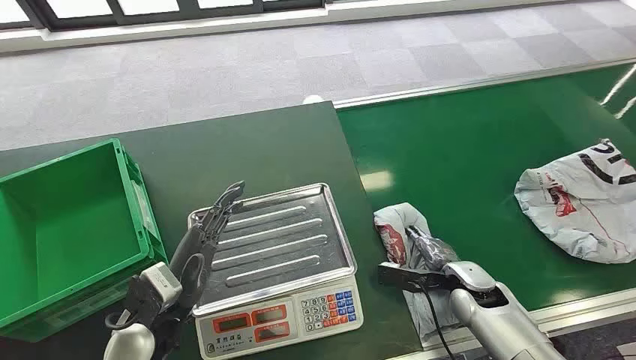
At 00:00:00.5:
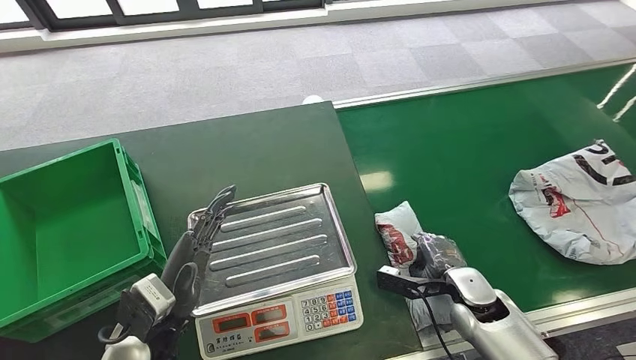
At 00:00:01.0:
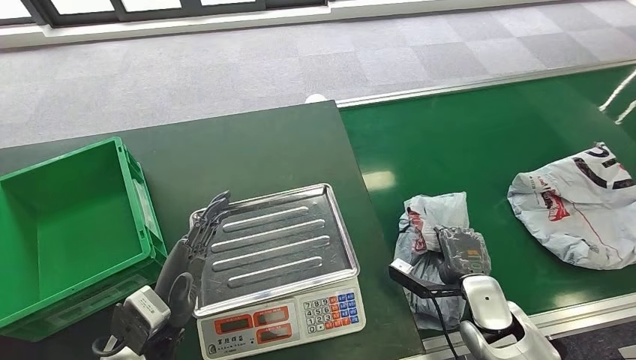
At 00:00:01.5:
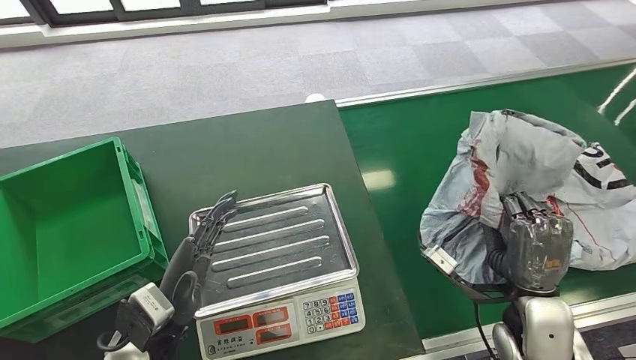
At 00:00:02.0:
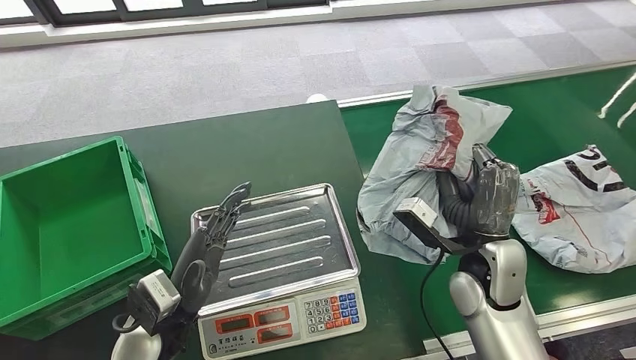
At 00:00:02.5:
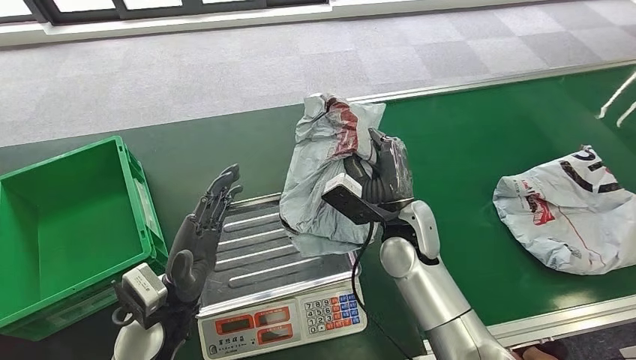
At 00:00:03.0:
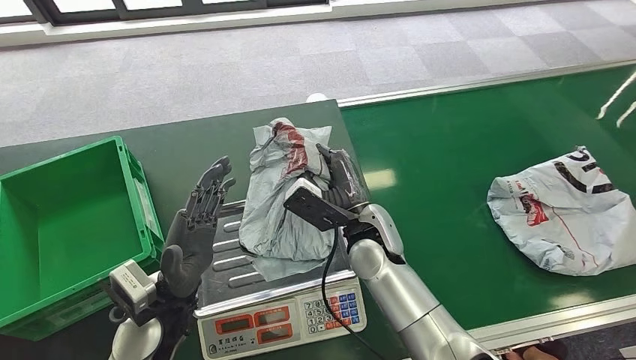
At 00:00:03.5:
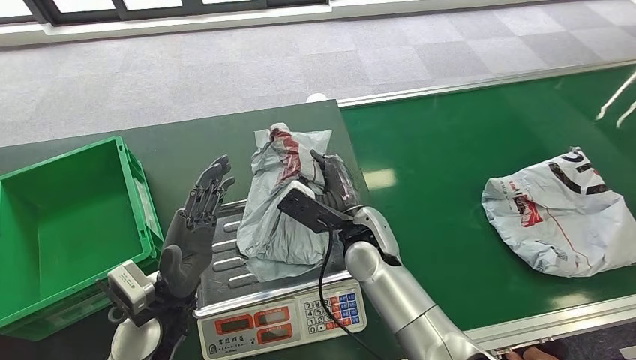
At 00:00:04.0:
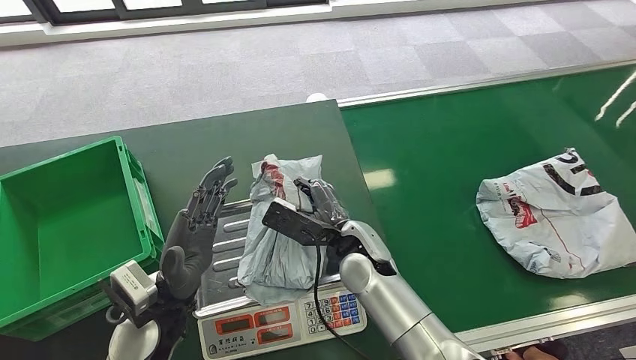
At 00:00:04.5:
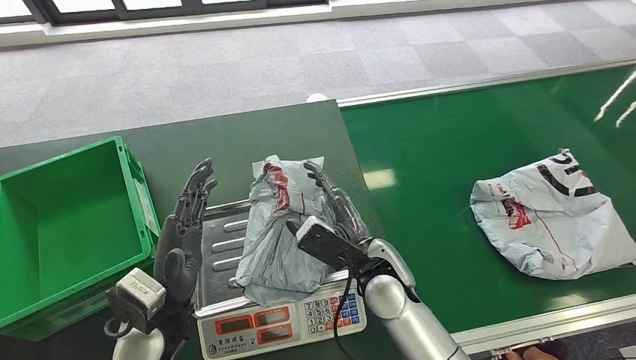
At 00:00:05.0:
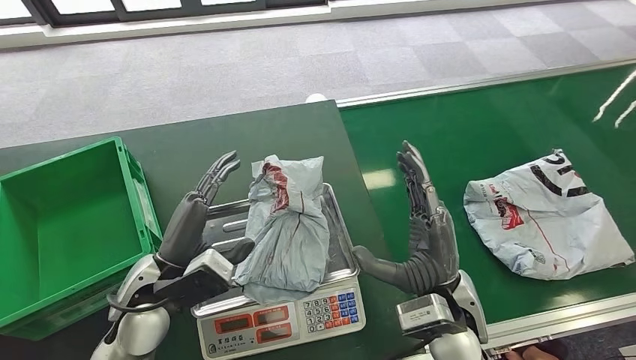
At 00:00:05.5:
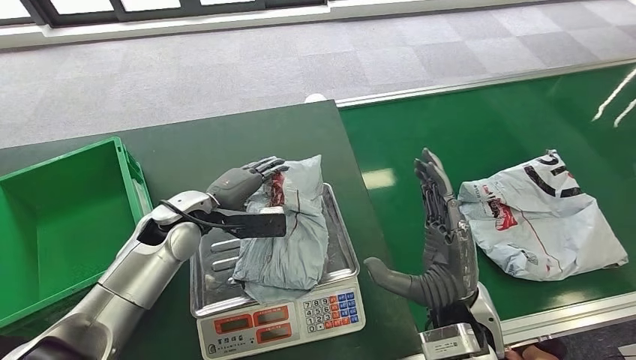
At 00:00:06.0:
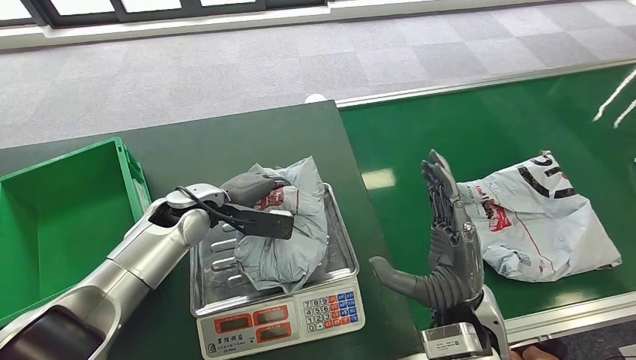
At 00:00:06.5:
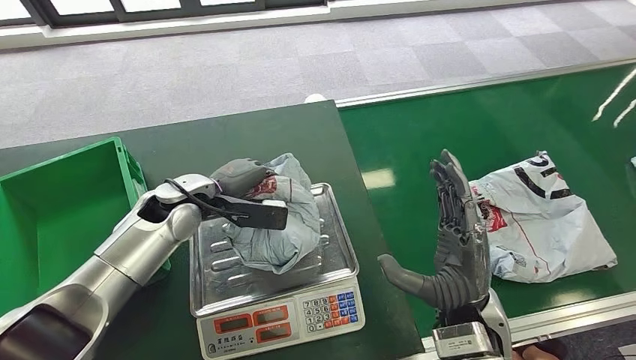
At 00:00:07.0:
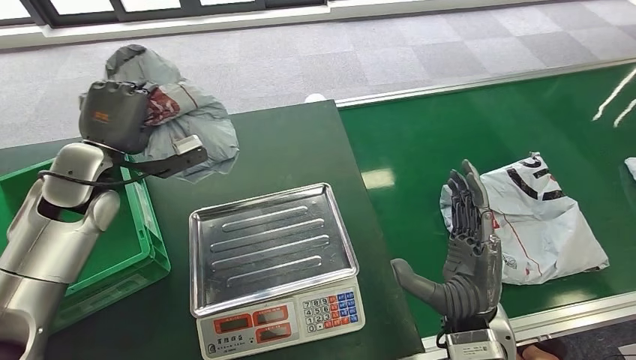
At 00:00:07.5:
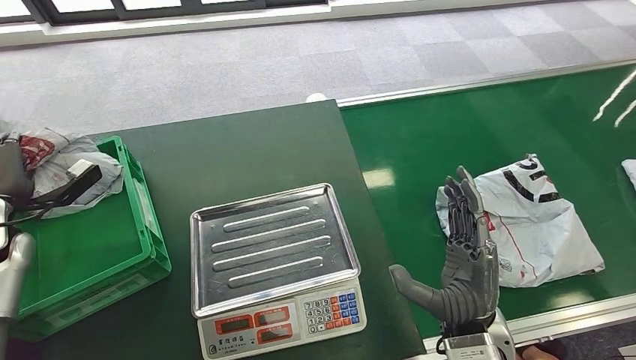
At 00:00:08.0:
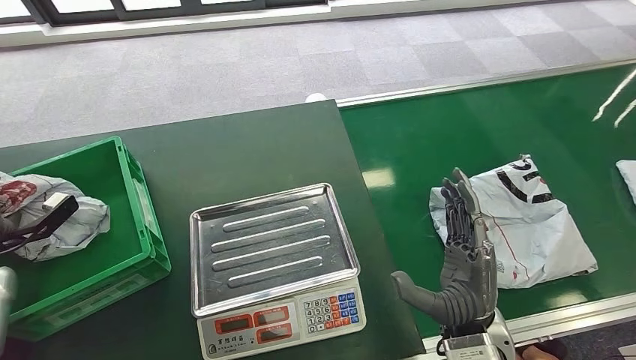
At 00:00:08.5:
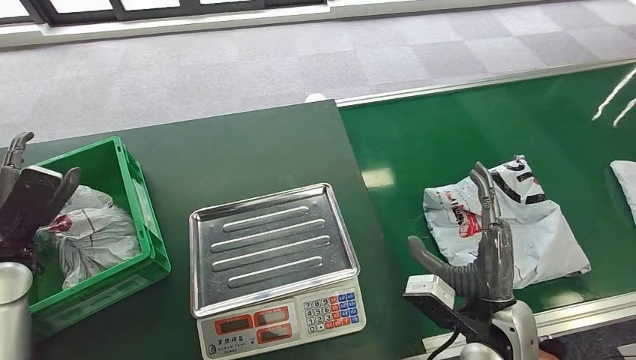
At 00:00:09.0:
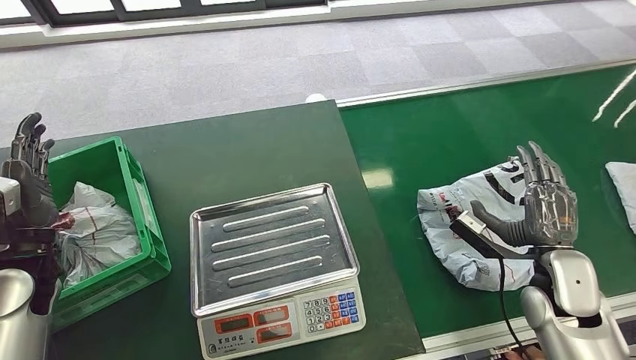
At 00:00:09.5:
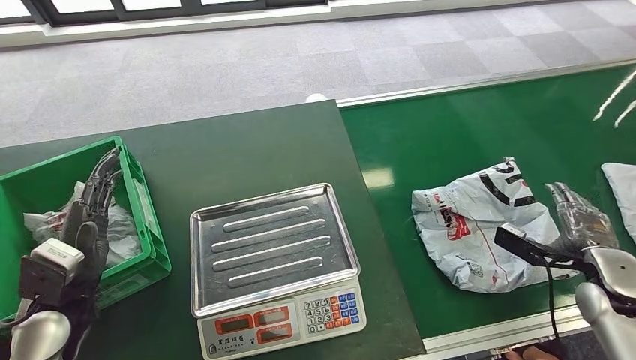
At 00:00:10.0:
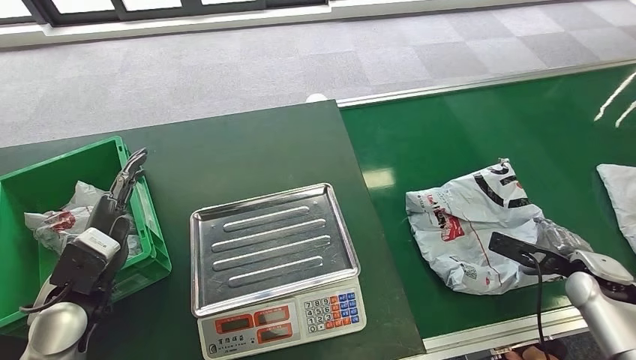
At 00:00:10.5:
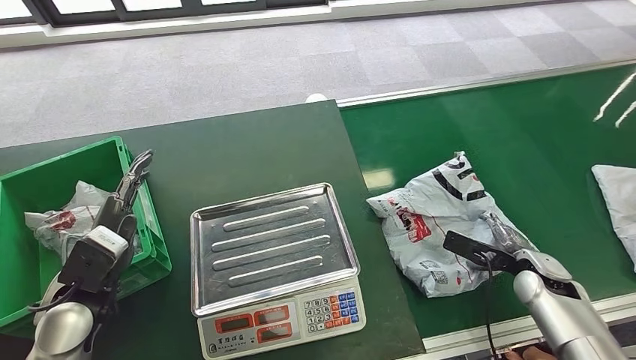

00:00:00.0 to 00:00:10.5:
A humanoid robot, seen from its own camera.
Step, 00:00:00.0 to 00:00:01.5: Take the parcel off the conveyor belt.
Step, 00:00:02.0 to 00:00:04.5: Place the parcel onto the inbound machine.
Step, 00:00:05.0 to 00:00:07.0: Pick up the parcel from the inbound machine.
Step, 00:00:07.5 to 00:00:10.5: Put the parcel inside the courier box.

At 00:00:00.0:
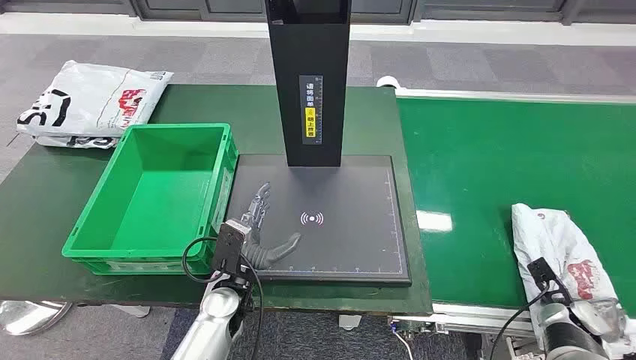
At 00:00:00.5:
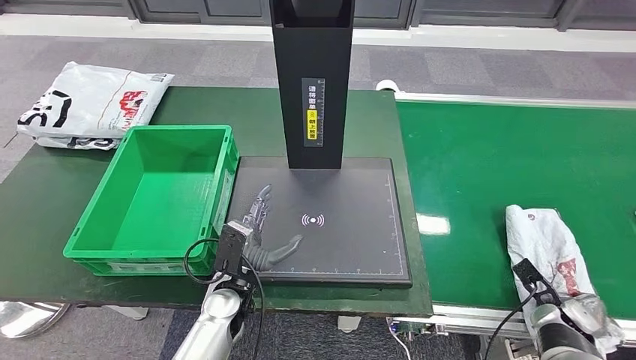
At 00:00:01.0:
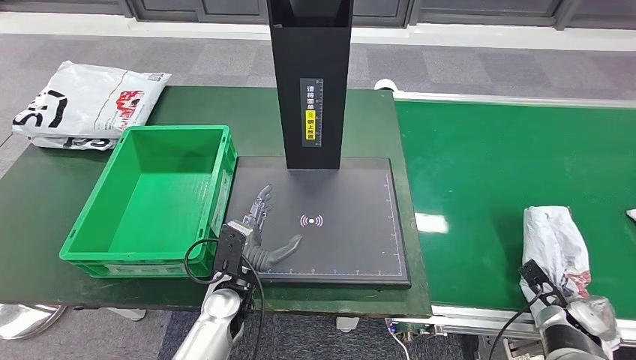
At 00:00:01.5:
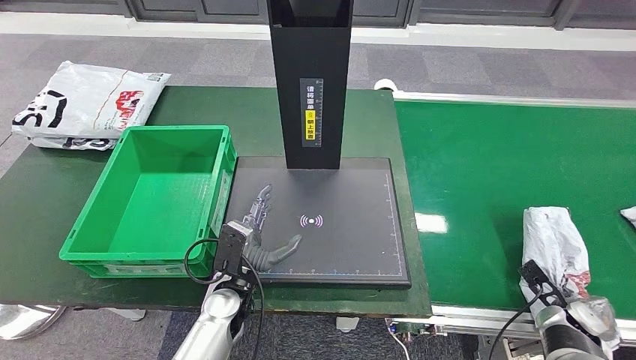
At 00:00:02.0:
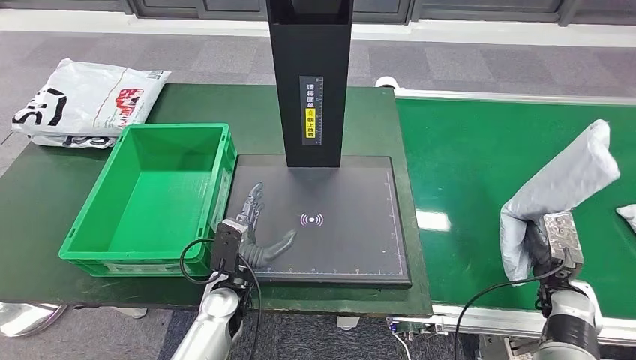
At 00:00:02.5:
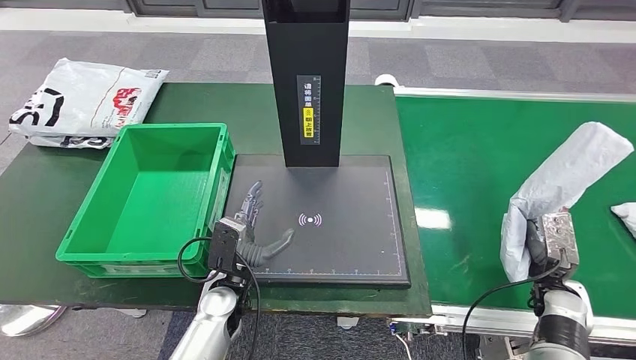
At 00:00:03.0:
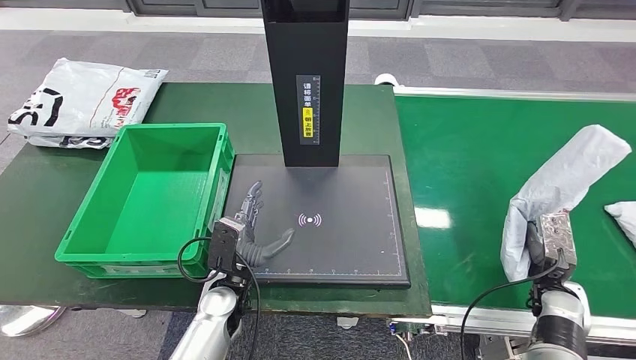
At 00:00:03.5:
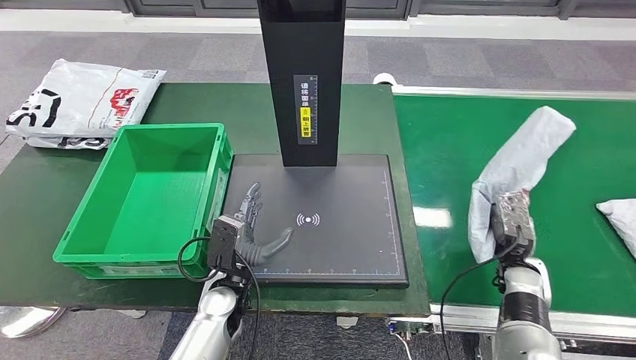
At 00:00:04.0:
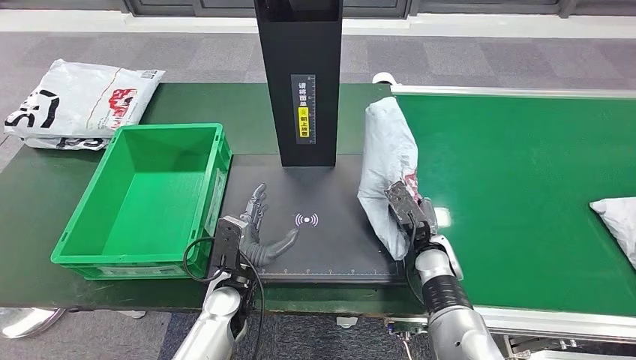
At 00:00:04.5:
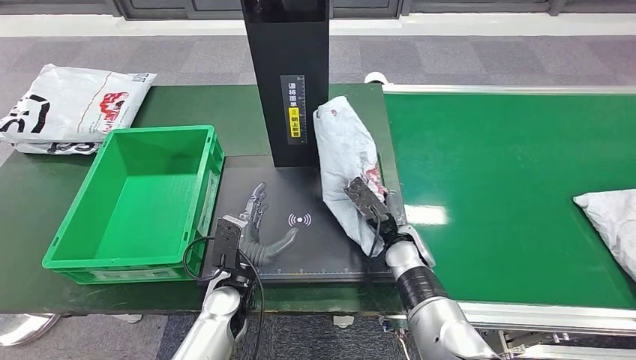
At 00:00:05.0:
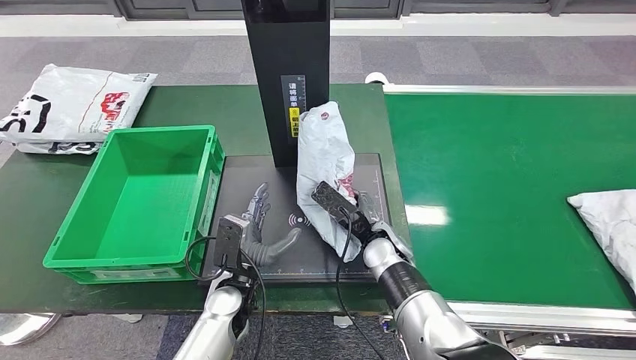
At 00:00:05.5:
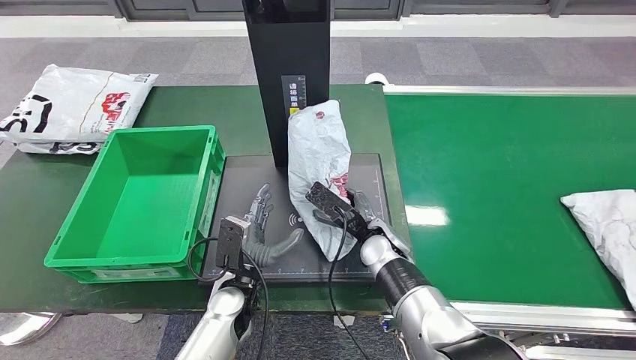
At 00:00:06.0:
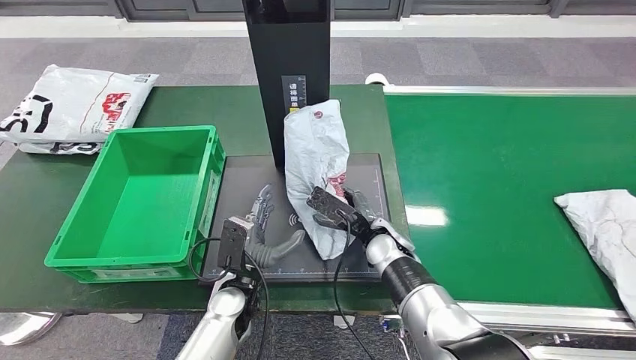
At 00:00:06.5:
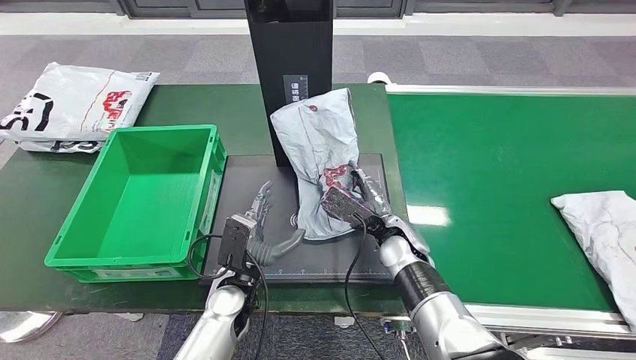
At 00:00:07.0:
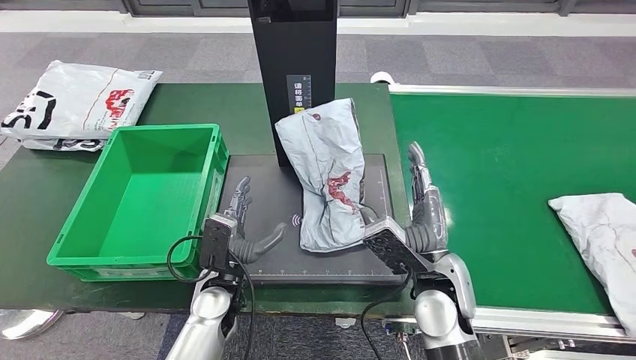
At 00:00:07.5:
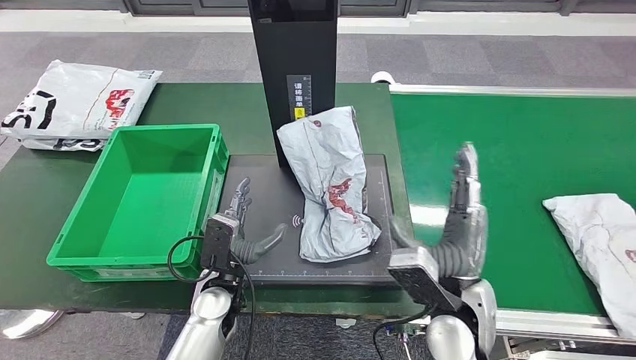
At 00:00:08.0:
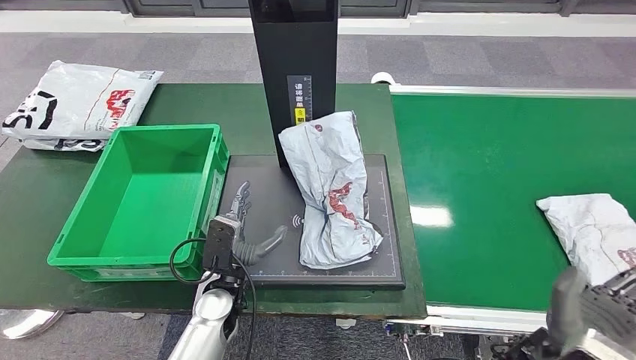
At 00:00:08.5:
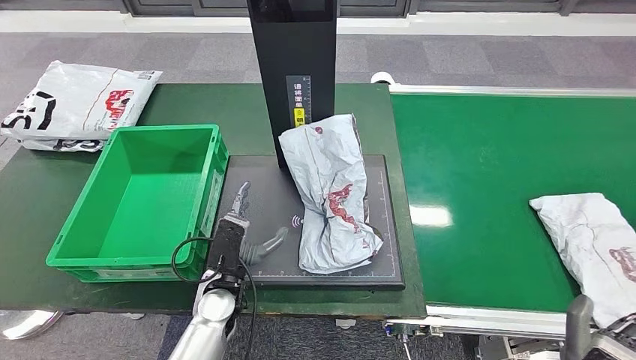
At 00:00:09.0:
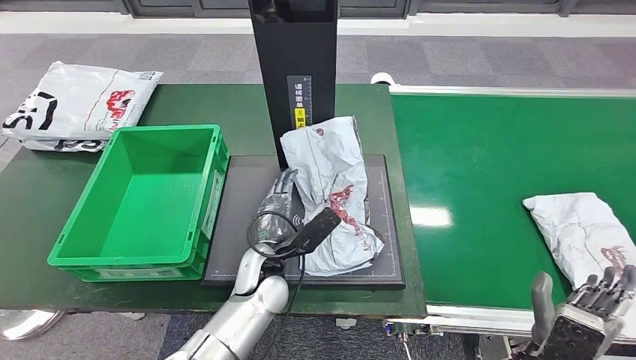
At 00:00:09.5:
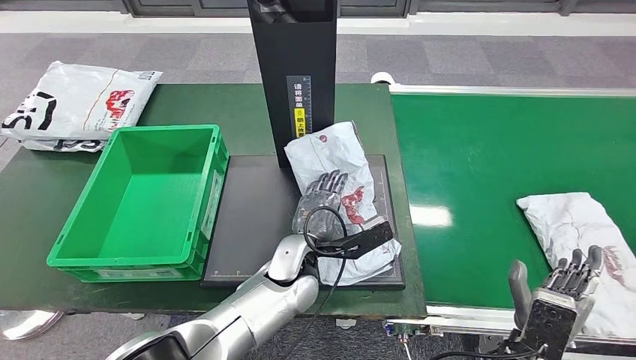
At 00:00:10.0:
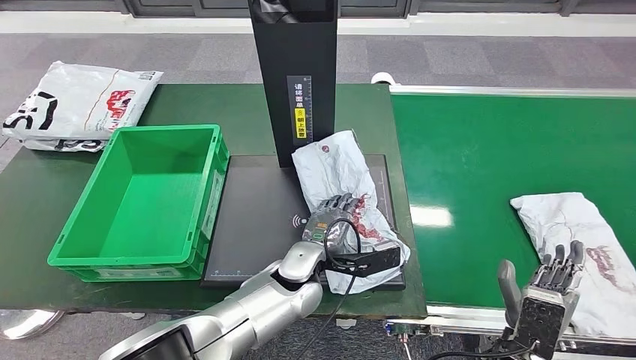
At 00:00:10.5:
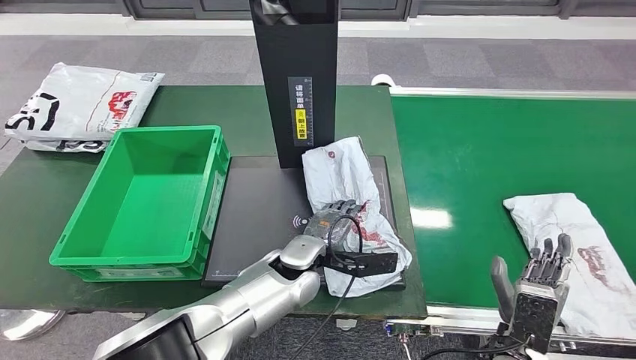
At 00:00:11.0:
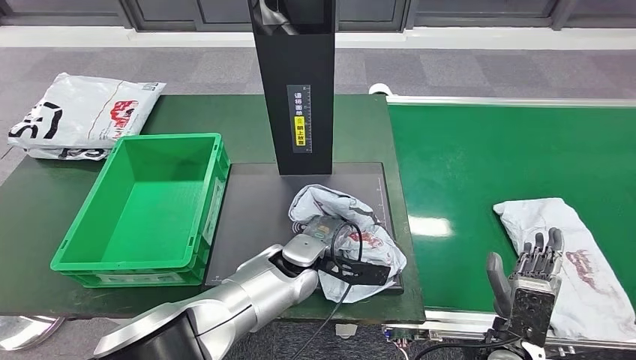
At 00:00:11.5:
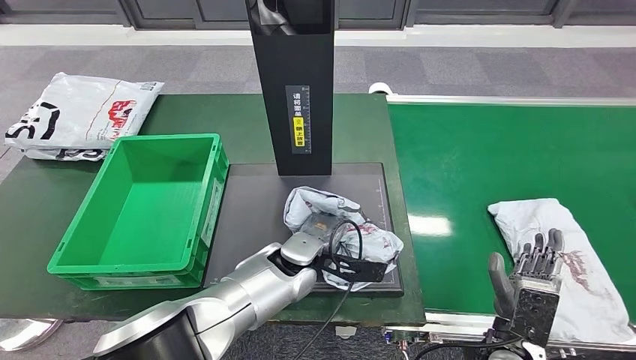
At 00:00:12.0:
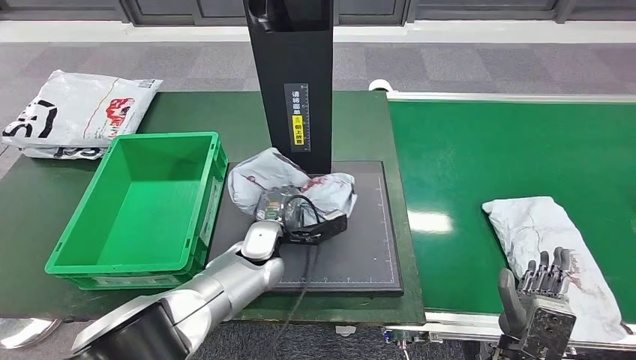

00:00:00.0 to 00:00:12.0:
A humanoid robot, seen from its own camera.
Step, 00:00:00.0 to 00:00:04.0: Take the parcel off the conveyor belt.
Step, 00:00:04.5 to 00:00:08.5: Place the parcel onto the inbound machine.
00:00:08.0 to 00:00:10.0: The right hand travels downward by some 10 cm; the left hand shifts some 15 cm to the right.
